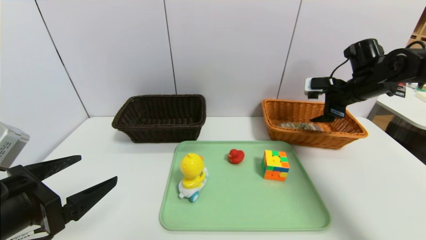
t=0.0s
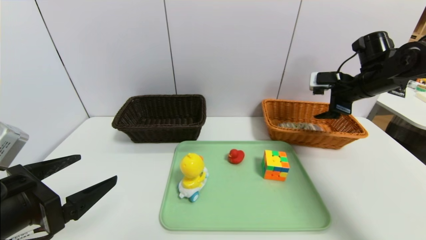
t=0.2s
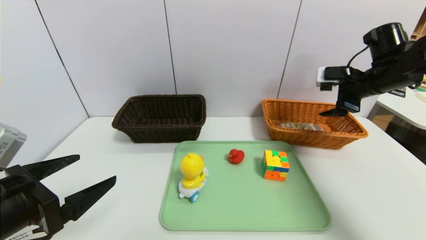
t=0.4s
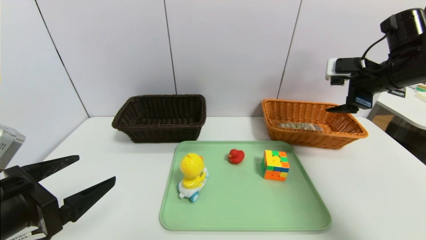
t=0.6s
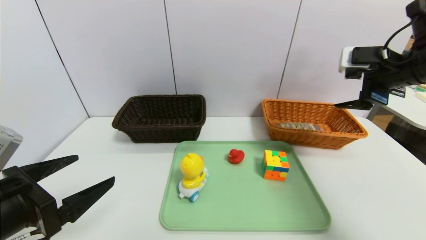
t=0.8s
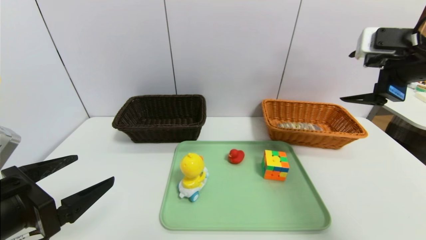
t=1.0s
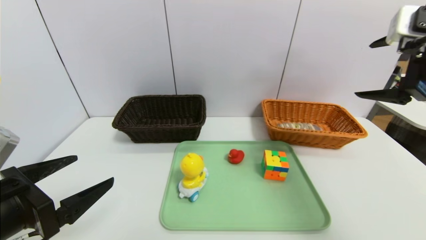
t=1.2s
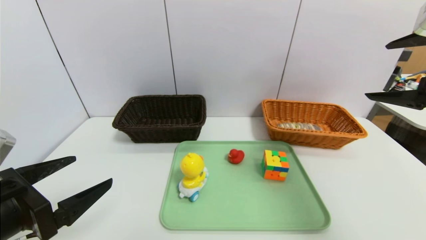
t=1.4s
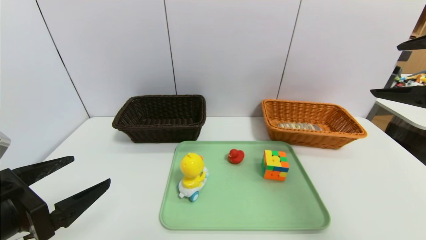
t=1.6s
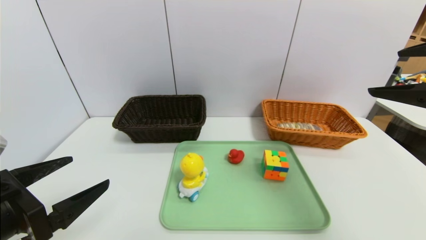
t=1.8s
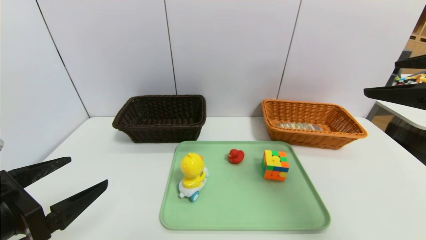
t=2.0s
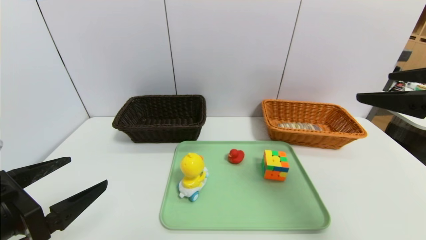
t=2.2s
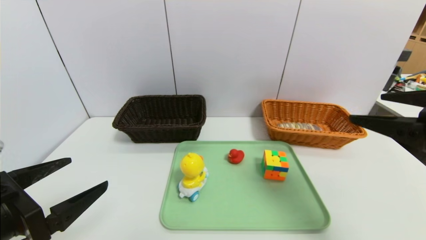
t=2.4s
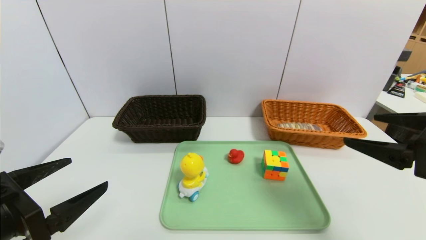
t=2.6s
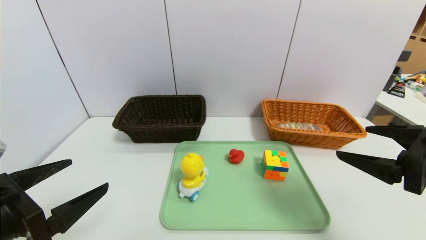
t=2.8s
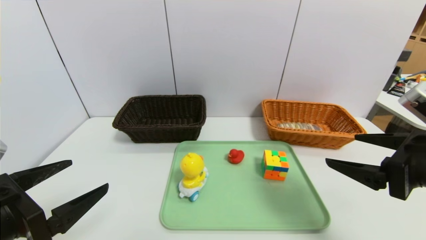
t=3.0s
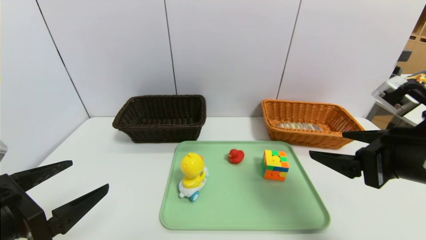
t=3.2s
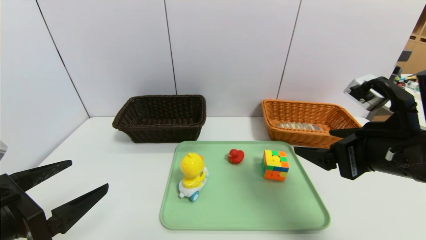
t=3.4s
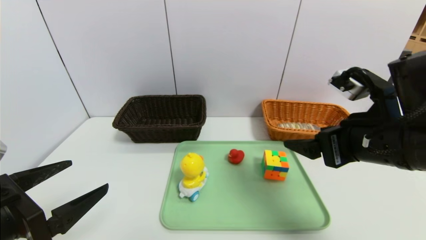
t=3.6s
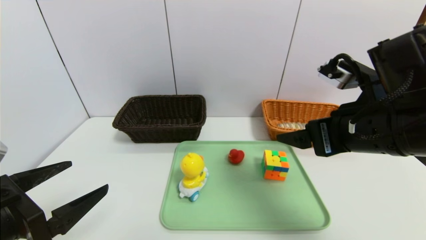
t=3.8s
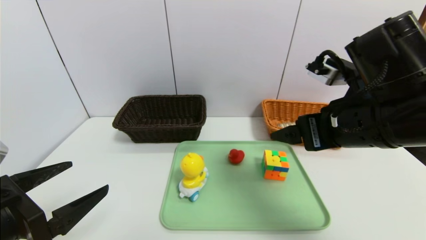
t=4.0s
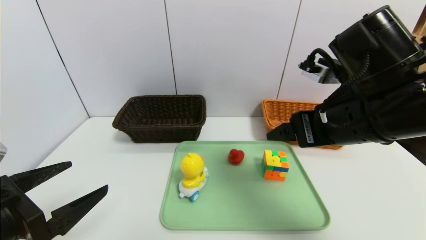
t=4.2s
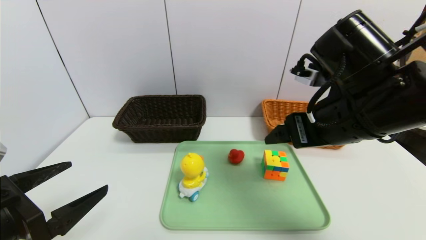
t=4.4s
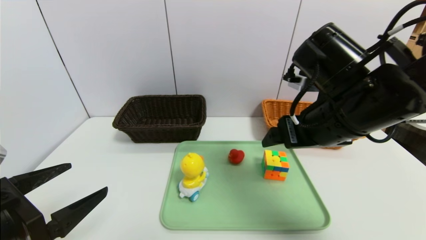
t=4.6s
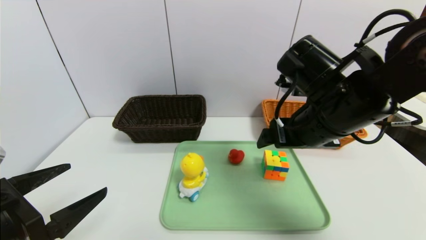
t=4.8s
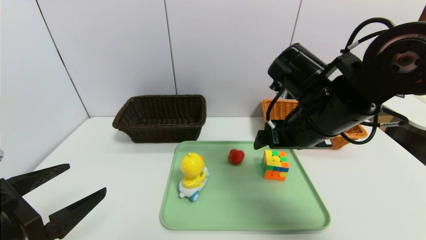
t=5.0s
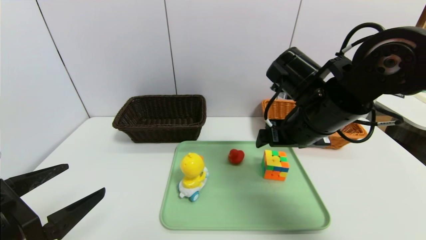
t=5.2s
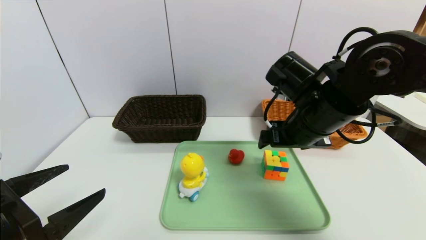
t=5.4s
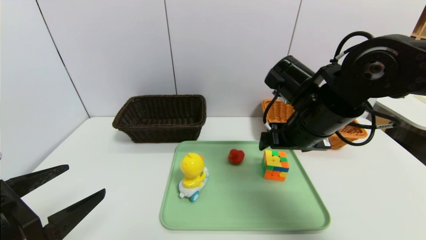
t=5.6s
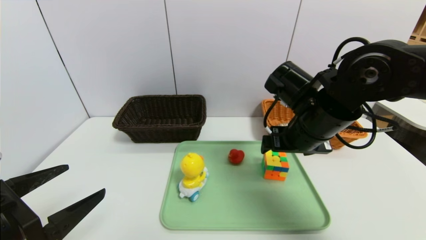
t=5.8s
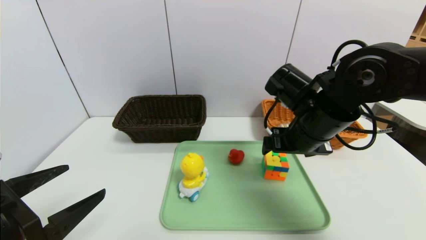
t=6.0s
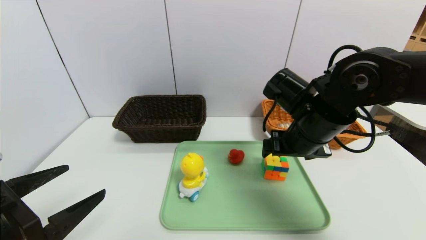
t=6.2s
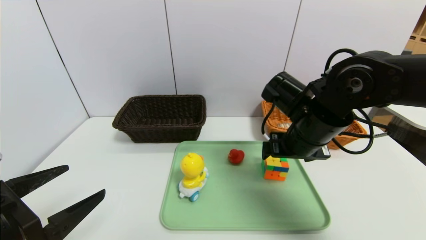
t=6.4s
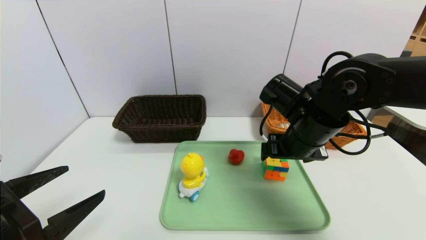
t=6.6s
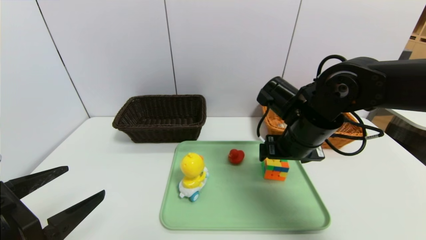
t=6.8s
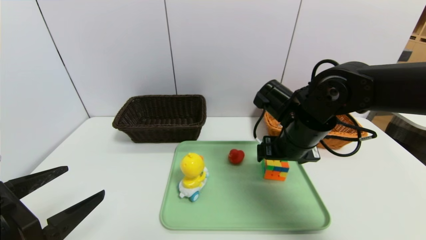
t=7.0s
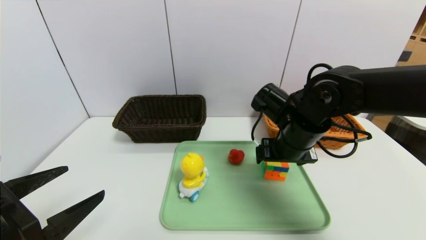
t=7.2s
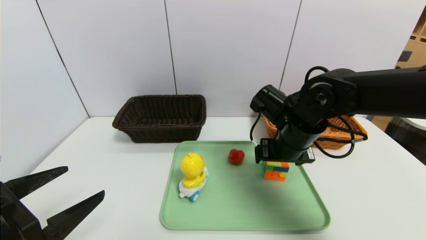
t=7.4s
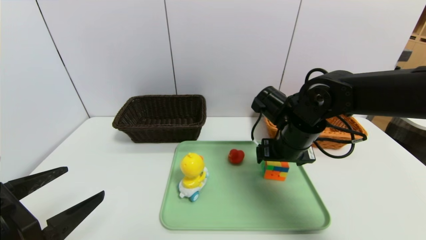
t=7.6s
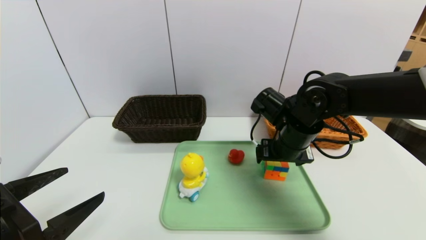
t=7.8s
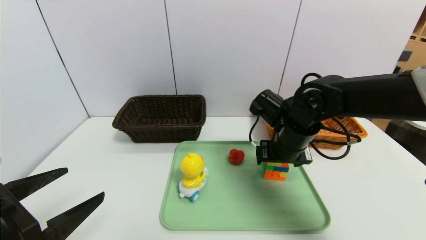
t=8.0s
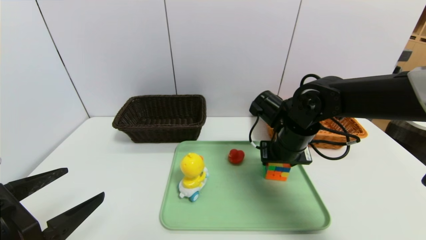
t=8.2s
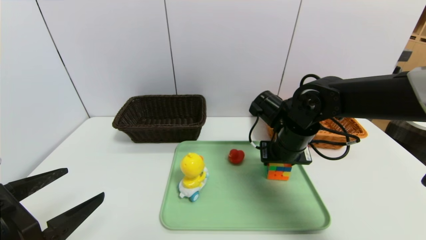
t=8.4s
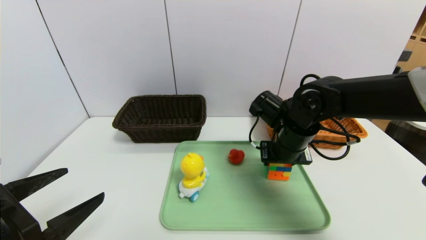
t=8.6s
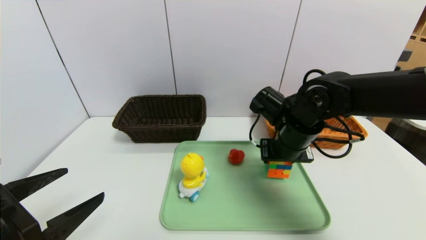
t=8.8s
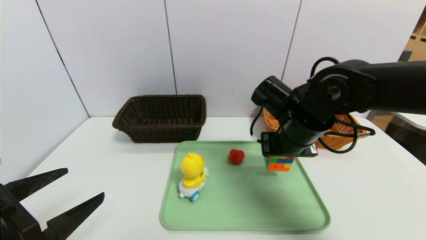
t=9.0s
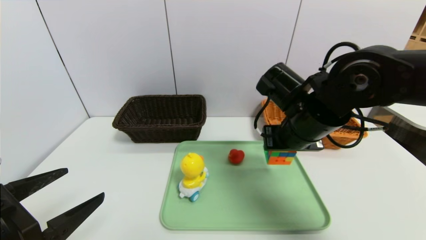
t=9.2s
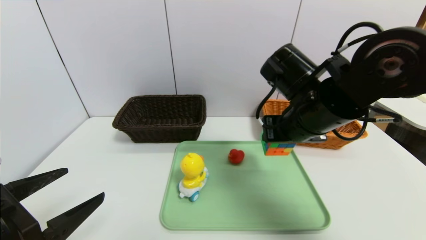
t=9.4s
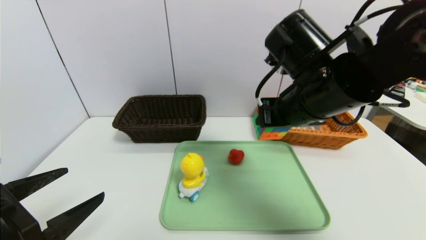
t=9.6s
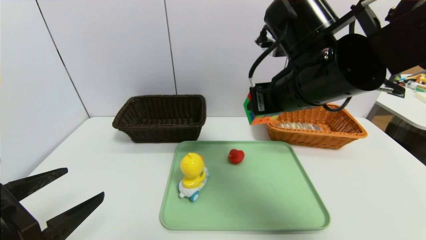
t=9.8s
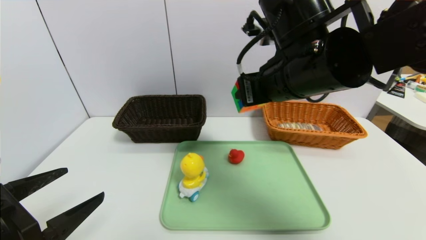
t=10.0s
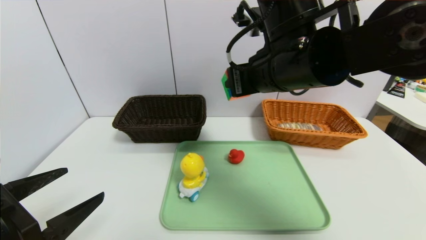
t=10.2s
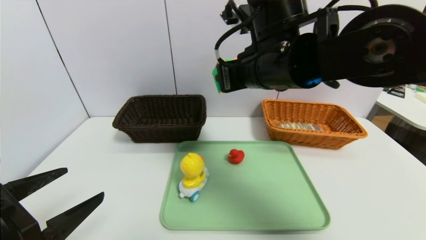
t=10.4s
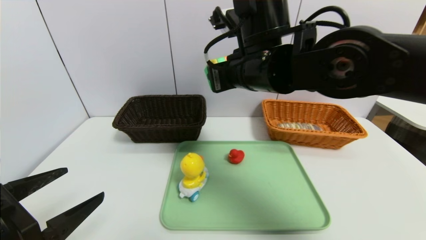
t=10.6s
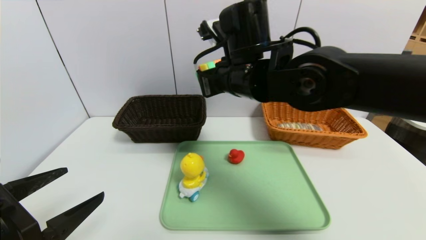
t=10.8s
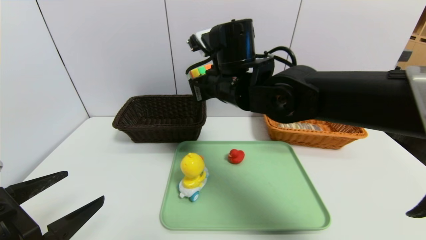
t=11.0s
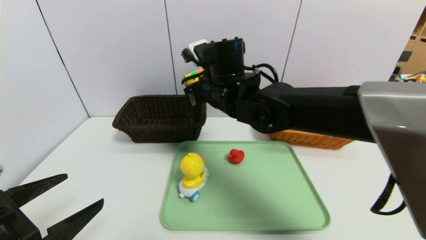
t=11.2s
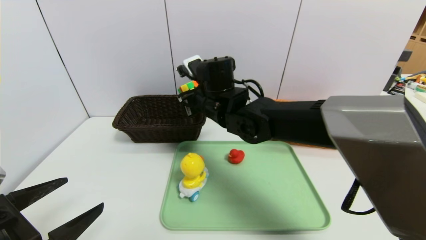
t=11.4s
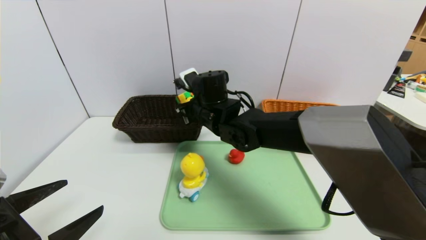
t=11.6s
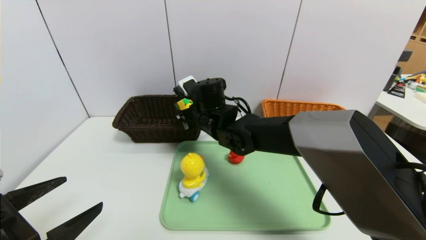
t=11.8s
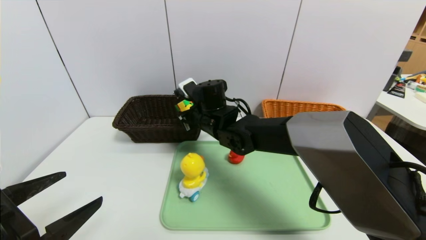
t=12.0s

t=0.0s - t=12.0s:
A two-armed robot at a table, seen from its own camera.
Task of the whole recording: place the food in the right basket with the right gripper, and place the non food items in the left basket with the left gripper.
t=0.0s - t=1.6s: The right gripper is displaced backward and upward by about 25 cm.
t=1.6s - t=3.0s: The right gripper heads downward, covering about 10 cm.
t=3.0s - t=4.4s: The right gripper goes some 15 cm to the left and forward.
t=4.4s - t=6.0s: The right gripper heads forward and downward, covering roughly 10 cm.
t=6.0s - t=7.6s: The right gripper shifts by about 5 cm.
t=7.6s - t=9.0s: The right gripper closes.
t=9.0s - t=10.4s: The right gripper heads upward and to the left, covering approximately 15 cm.
t=10.4s - t=12.0s: The right gripper moves downward, forward and to the left, some 20 cm.

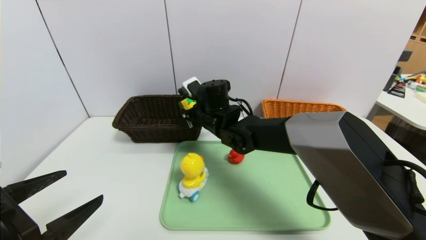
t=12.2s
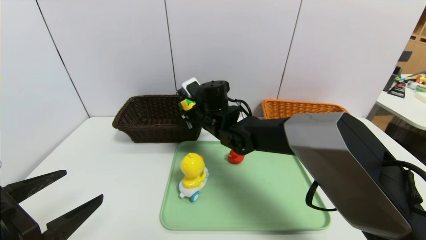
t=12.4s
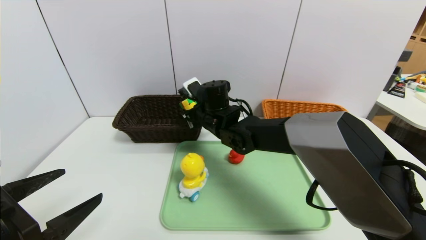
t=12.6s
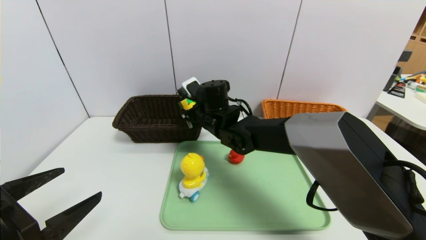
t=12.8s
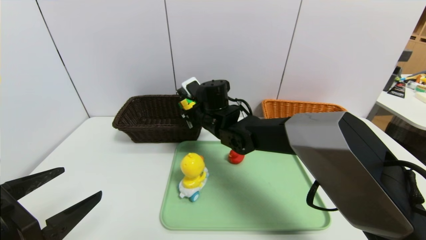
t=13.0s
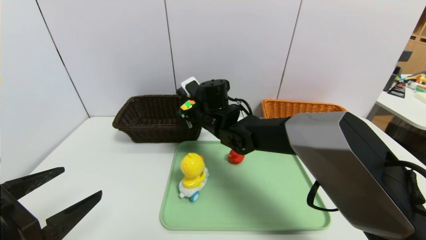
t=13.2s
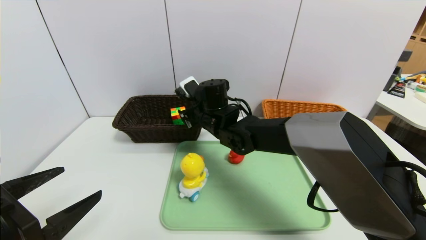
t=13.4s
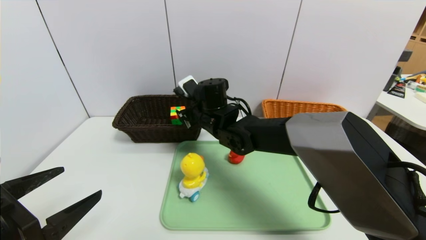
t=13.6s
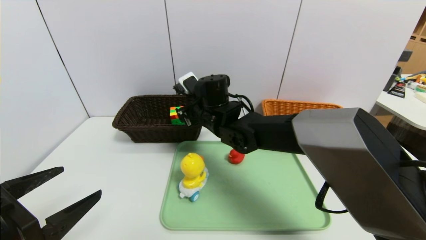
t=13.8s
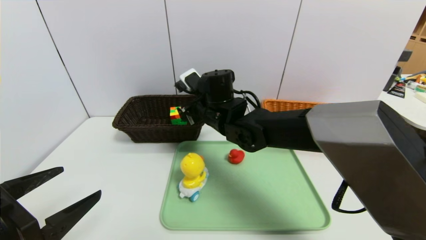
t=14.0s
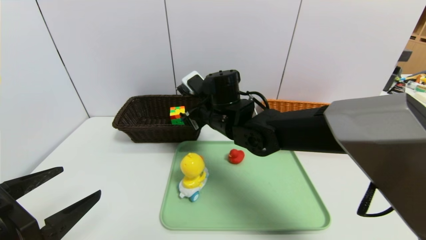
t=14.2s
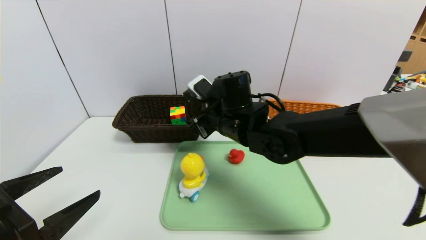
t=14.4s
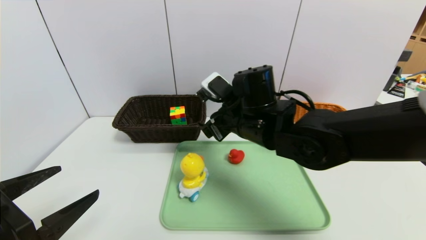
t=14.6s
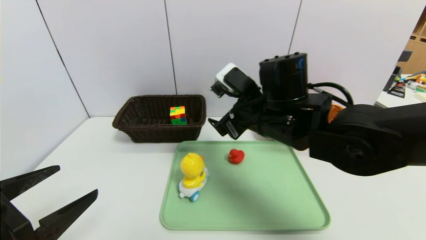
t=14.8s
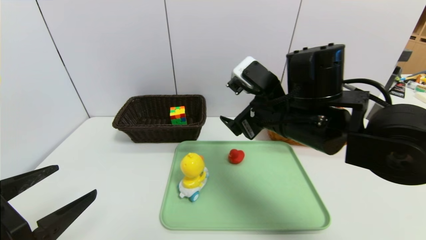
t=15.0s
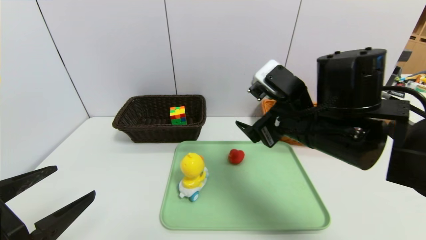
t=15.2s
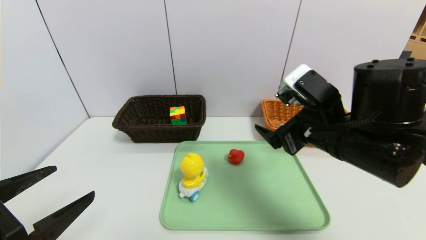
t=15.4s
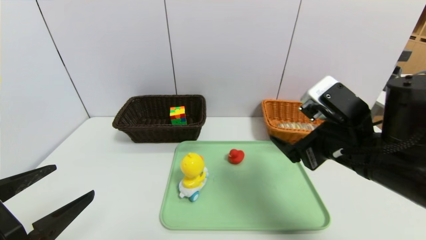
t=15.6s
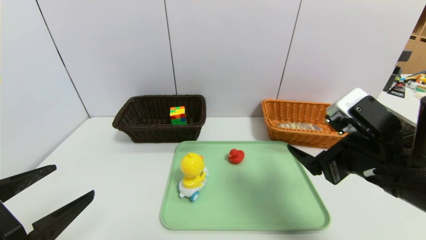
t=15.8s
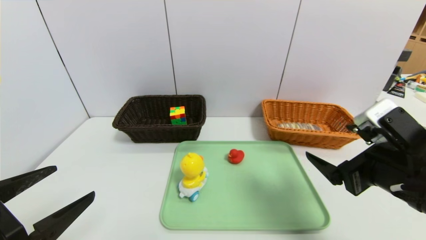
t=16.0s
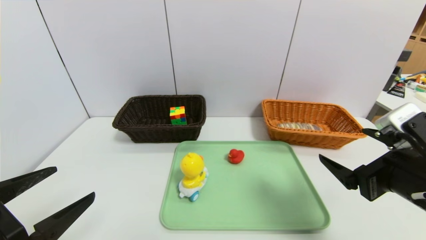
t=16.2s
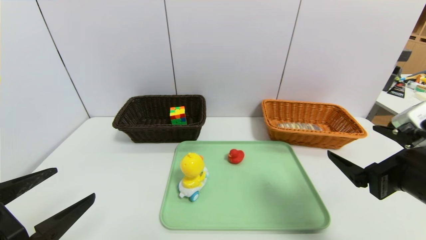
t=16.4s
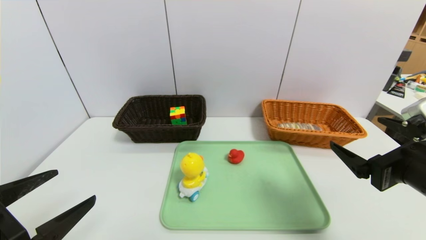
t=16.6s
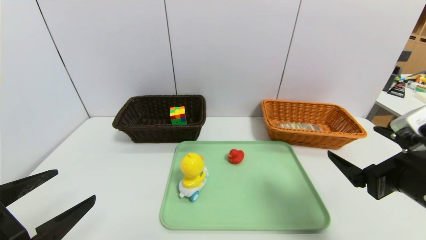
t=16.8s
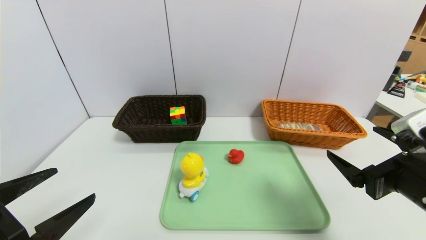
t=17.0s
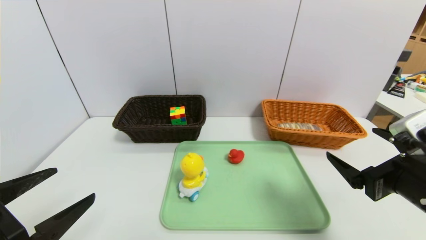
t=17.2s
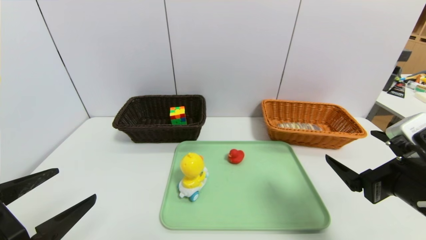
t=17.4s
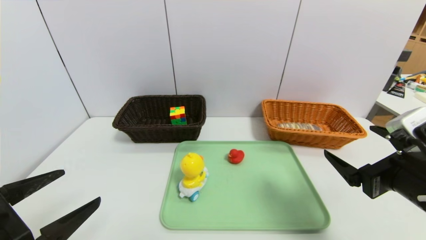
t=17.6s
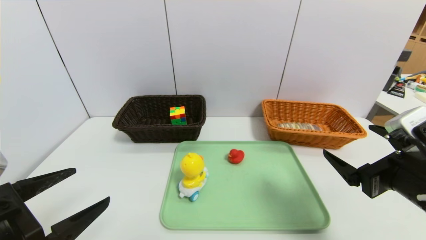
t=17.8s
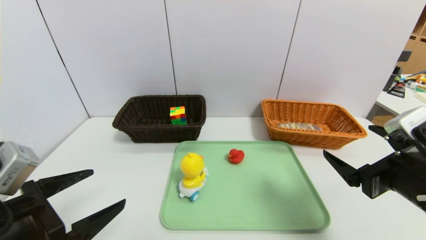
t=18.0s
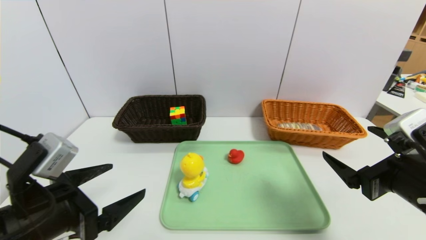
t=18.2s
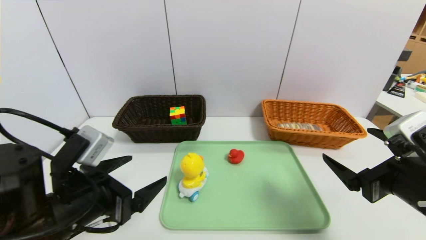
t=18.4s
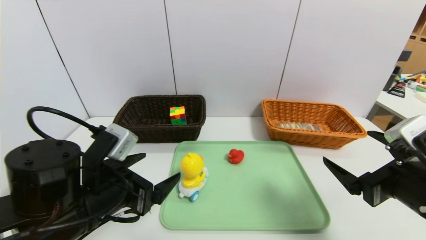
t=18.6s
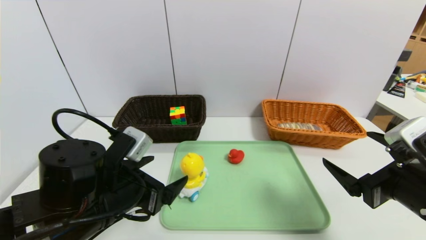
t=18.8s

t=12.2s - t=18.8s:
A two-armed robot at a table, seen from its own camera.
Task of the whole recording: place the food in the right basket with the right gripper, and place the non food items in the left basket with the left gripper.
t=12.2s - t=13.8s: The right gripper opens up.
t=13.8s - t=15.4s: The right gripper shifts about 25 cm to the right and backward.
t=15.4s - t=17.2s: The right gripper moves to the right and backward, some 10 cm.
t=17.2s - t=18.8s: The left gripper moves to the right and forward, about 15 cm.
